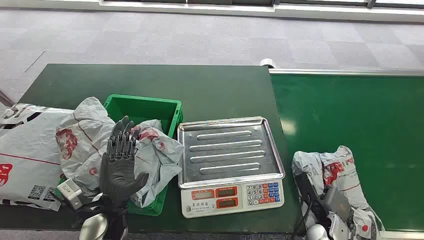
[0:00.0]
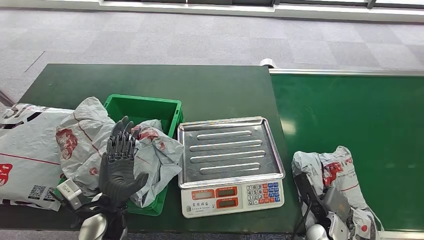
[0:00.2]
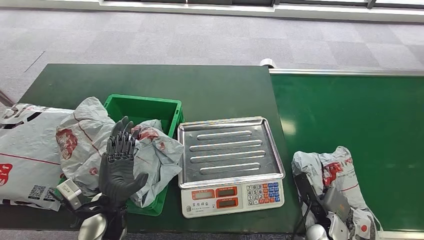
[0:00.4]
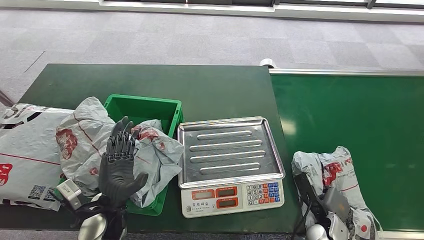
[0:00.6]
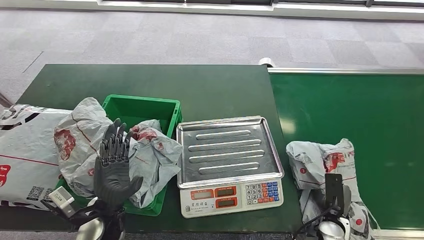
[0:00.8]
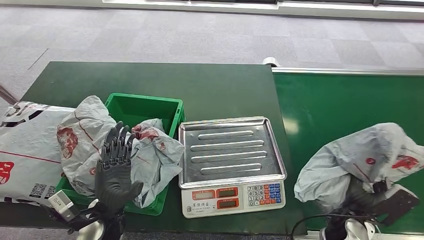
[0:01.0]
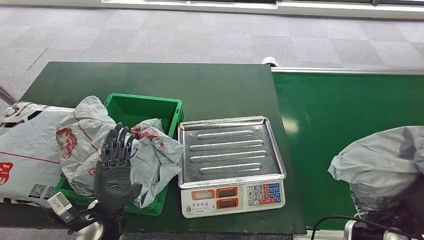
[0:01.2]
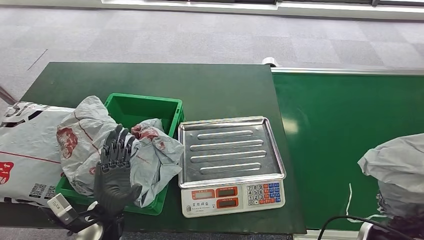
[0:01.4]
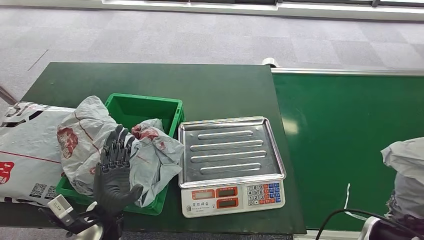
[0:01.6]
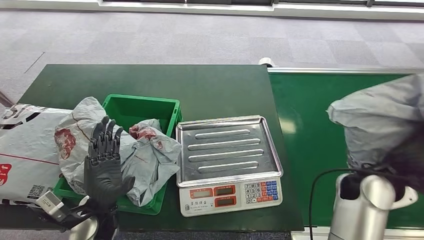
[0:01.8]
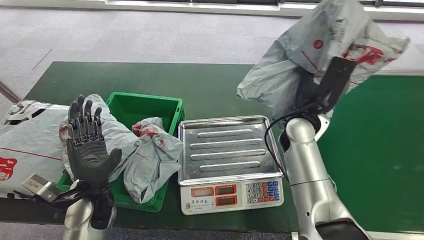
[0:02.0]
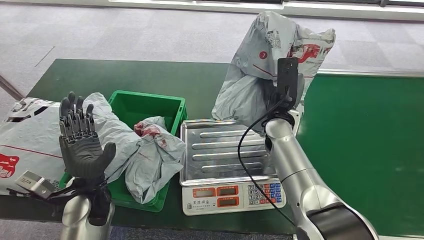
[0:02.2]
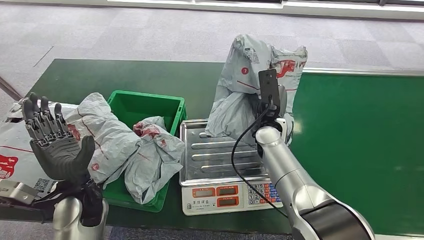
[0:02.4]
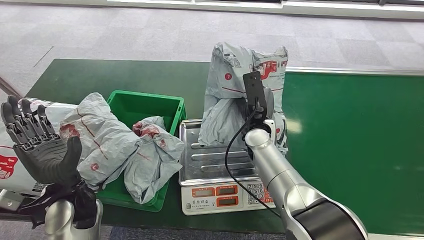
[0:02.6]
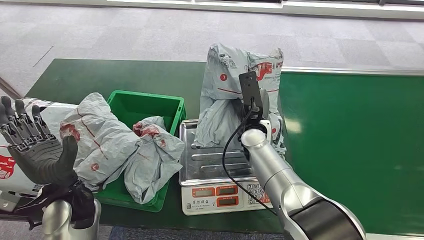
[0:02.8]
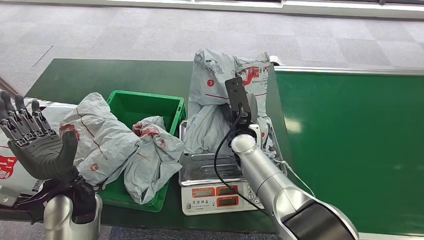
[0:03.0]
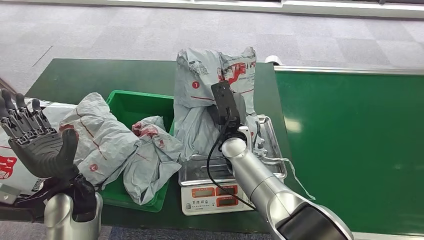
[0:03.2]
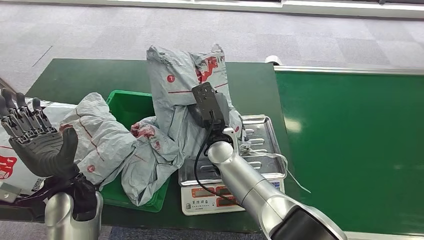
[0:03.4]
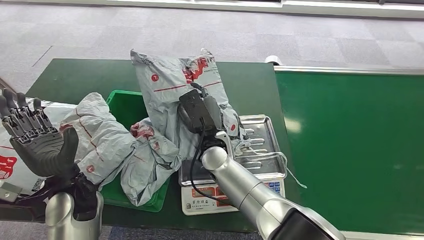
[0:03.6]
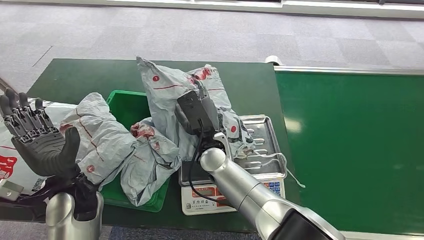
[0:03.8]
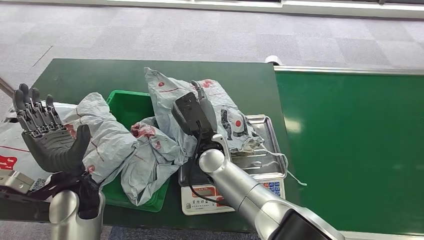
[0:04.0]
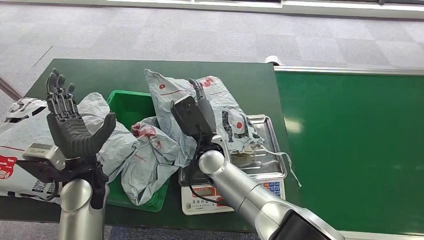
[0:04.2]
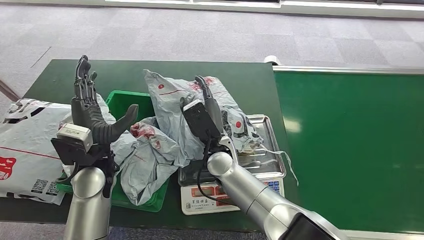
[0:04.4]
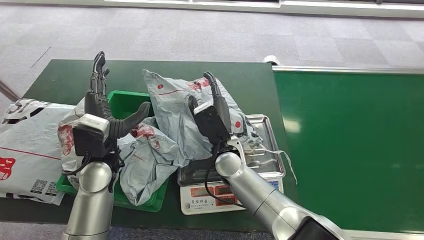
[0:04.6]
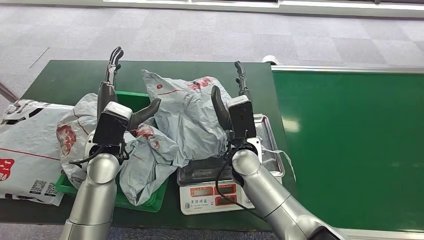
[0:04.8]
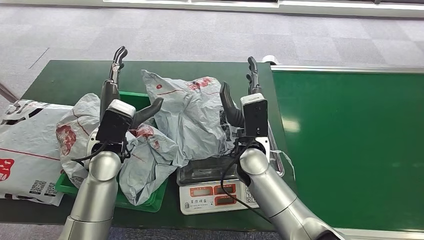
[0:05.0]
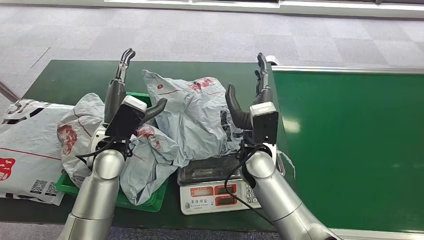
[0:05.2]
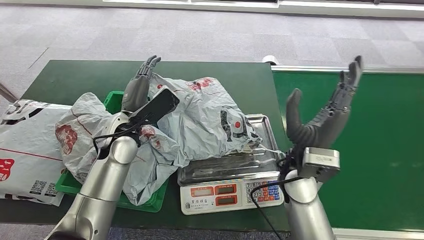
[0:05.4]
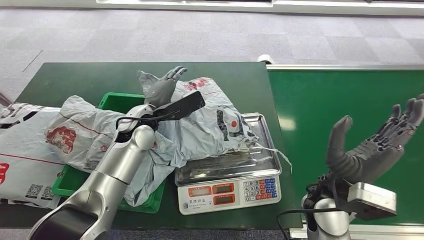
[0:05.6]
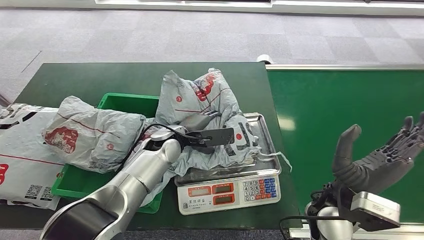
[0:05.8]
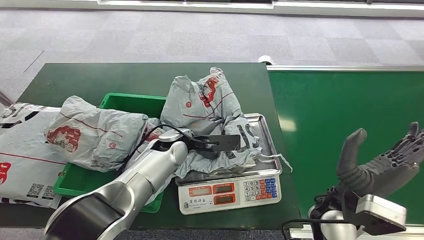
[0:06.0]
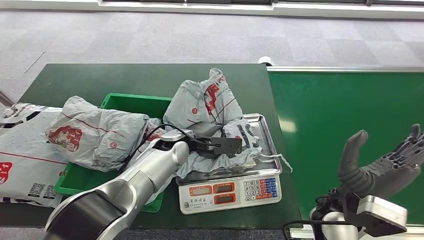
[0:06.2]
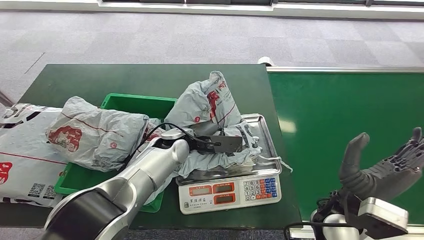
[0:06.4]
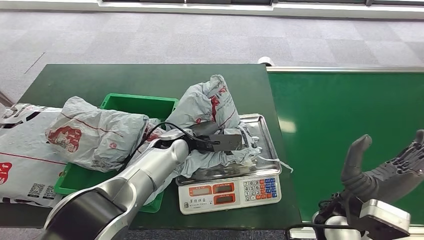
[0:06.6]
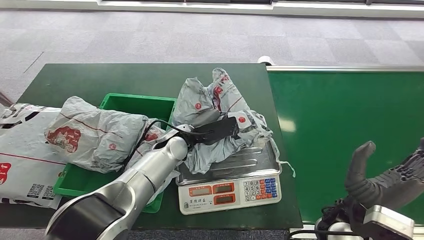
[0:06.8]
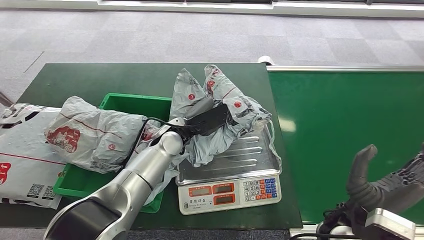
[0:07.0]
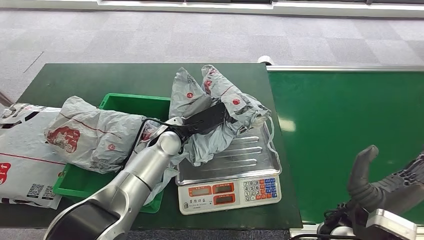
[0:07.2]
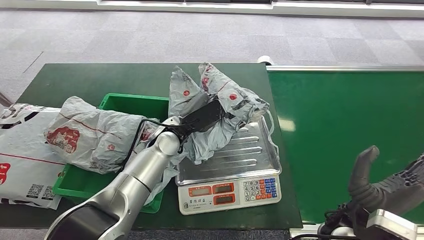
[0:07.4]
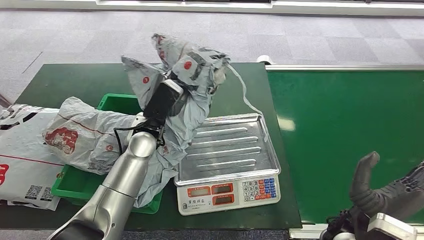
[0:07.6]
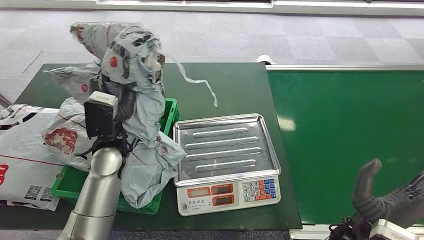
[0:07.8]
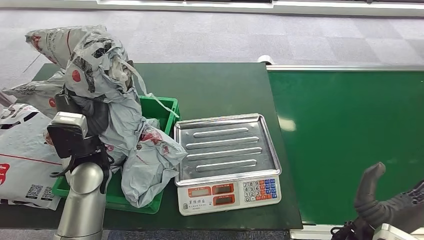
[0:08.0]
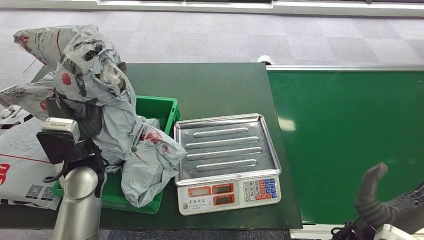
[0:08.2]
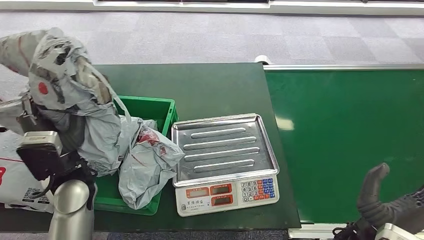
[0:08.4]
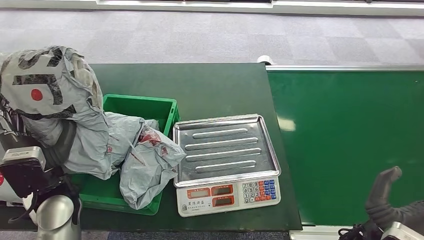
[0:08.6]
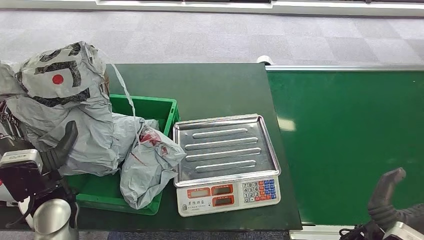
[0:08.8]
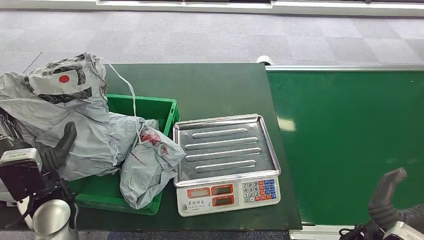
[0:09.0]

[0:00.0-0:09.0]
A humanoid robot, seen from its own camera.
Step, 0:00.0 to 0:01.8: Pick up the package from the conveyor belt.
Step, 0:02.0 to 0:05.6: Place the package onto the inbound machine.
Step, 0:05.8 to 0:07.8: Pick up the package from the inbound machine.
Step, 0:08.2 to 0:09.0: Place the package into the parcel locker.
